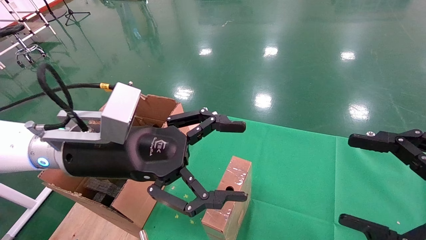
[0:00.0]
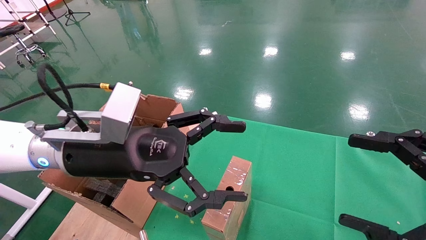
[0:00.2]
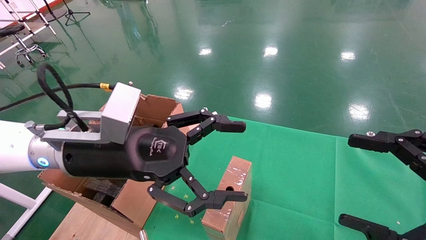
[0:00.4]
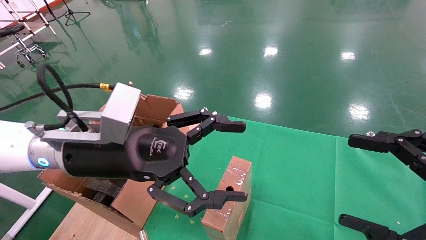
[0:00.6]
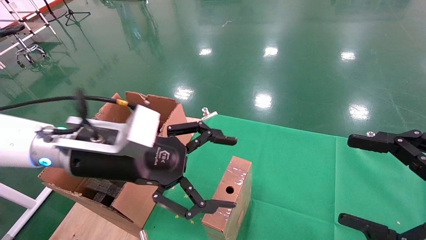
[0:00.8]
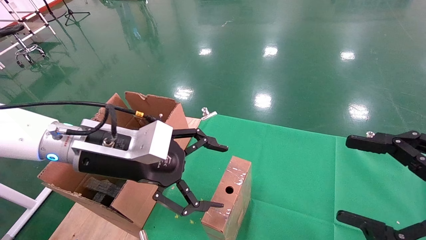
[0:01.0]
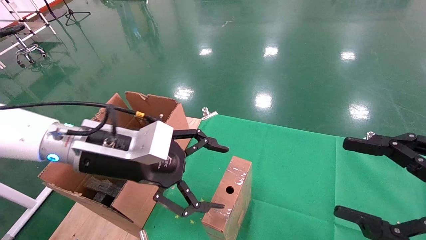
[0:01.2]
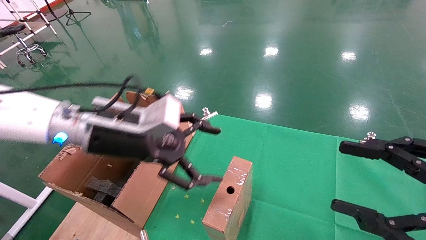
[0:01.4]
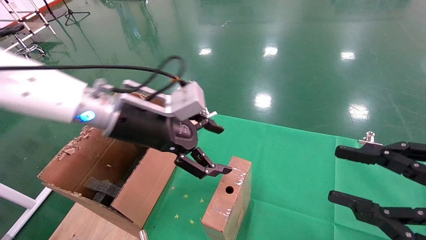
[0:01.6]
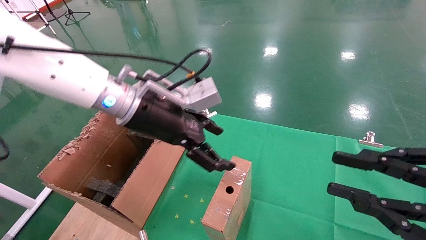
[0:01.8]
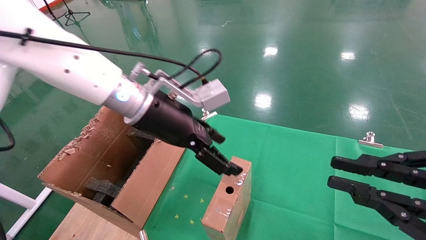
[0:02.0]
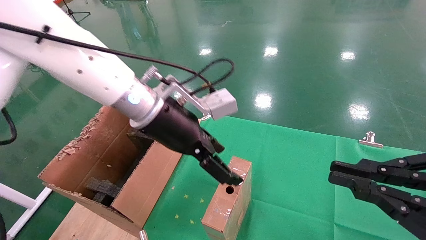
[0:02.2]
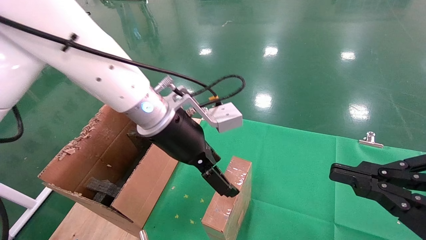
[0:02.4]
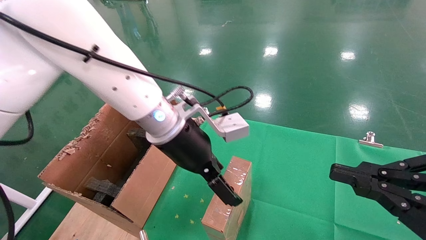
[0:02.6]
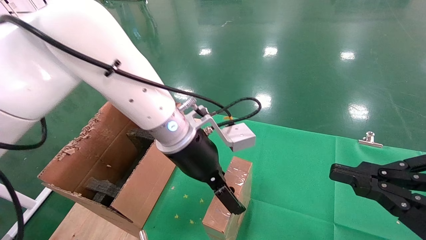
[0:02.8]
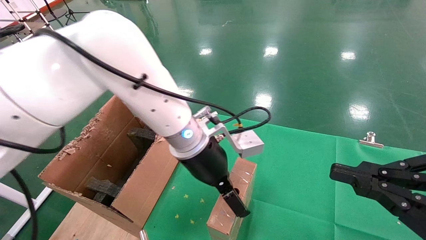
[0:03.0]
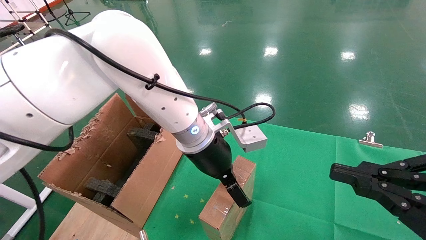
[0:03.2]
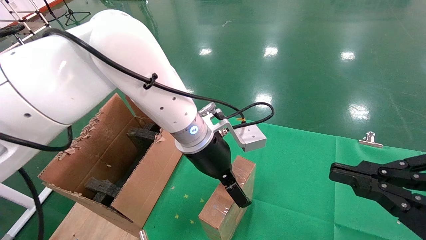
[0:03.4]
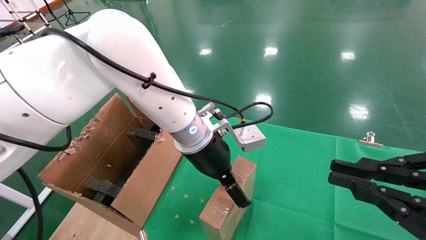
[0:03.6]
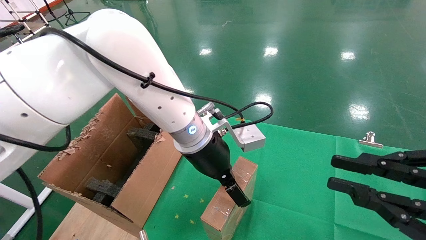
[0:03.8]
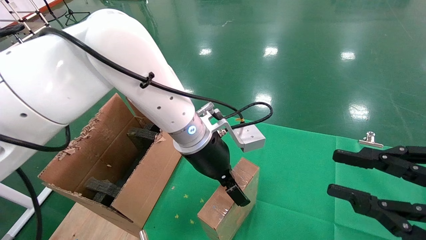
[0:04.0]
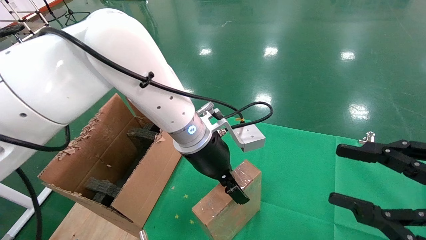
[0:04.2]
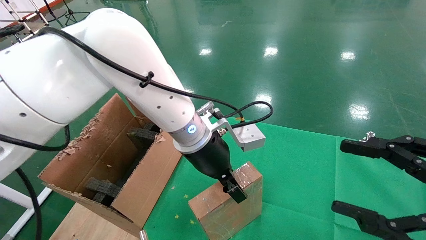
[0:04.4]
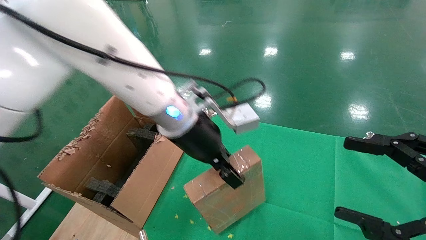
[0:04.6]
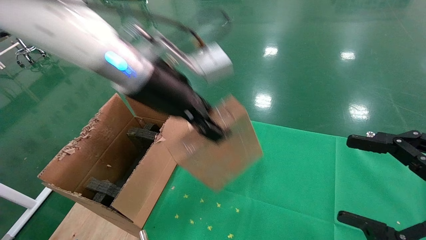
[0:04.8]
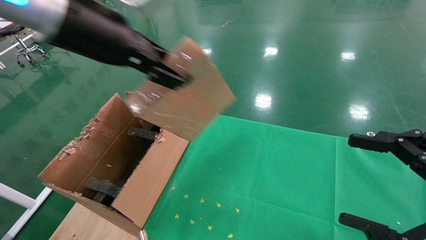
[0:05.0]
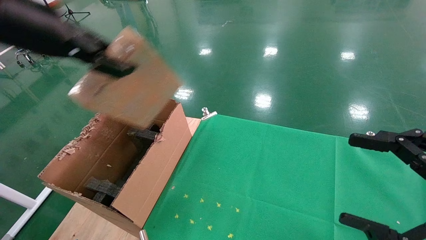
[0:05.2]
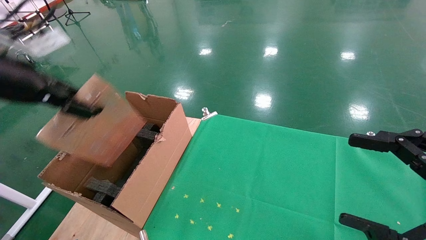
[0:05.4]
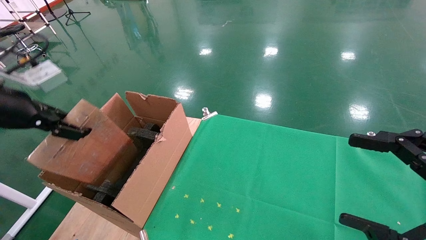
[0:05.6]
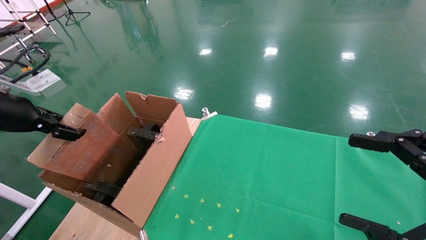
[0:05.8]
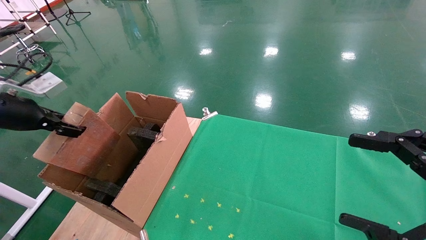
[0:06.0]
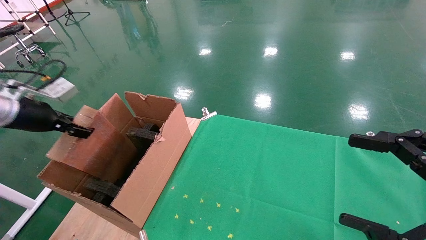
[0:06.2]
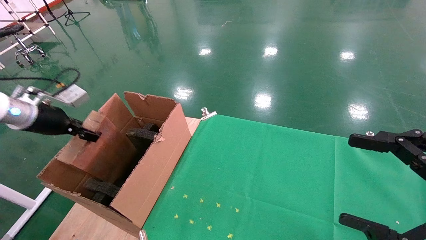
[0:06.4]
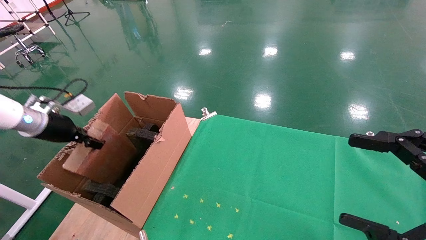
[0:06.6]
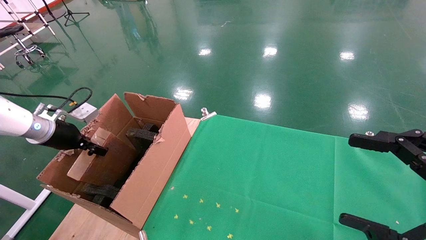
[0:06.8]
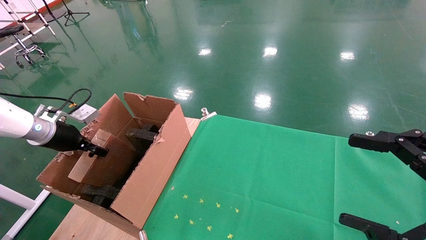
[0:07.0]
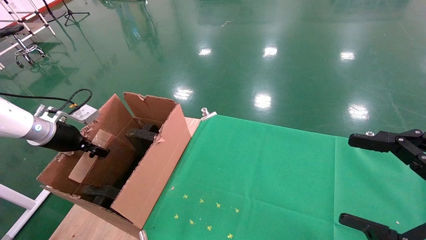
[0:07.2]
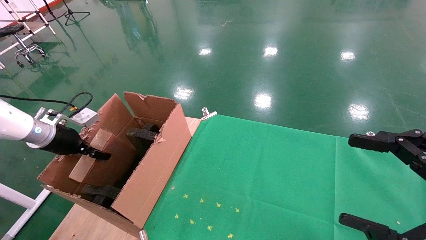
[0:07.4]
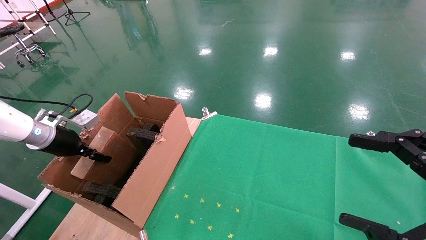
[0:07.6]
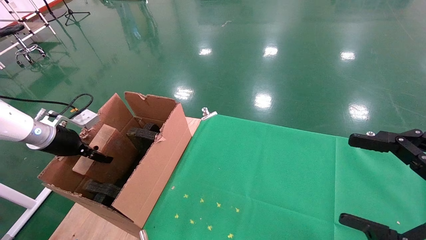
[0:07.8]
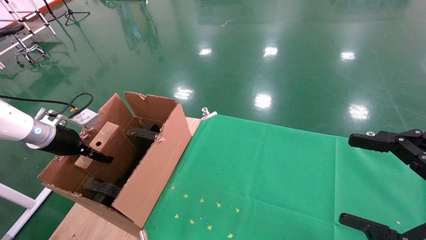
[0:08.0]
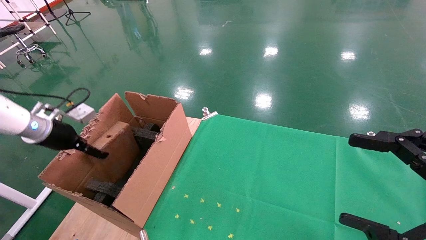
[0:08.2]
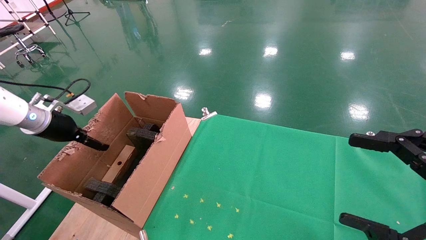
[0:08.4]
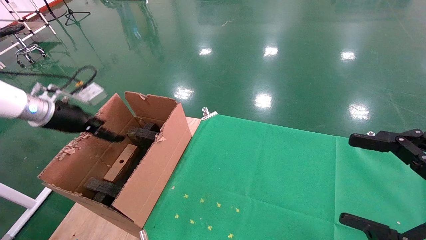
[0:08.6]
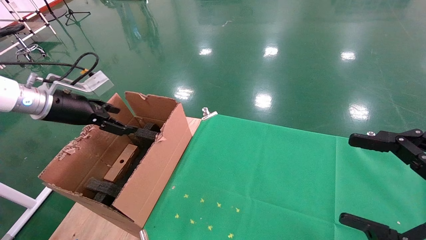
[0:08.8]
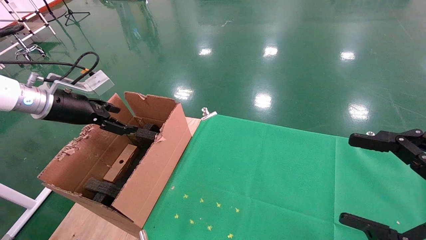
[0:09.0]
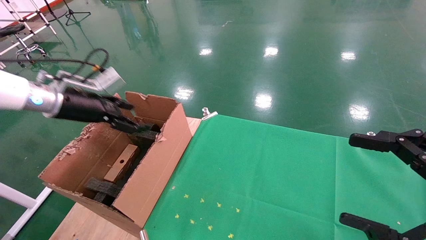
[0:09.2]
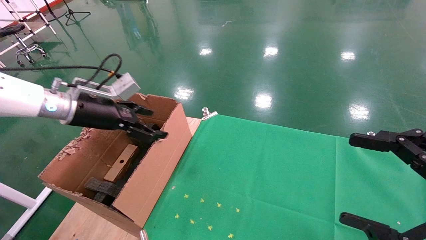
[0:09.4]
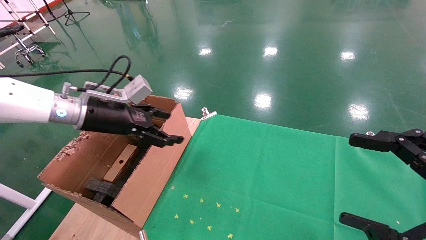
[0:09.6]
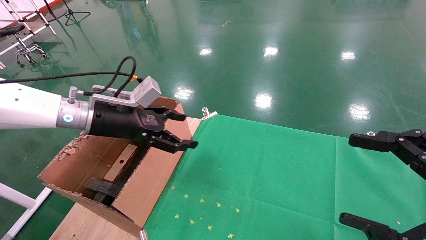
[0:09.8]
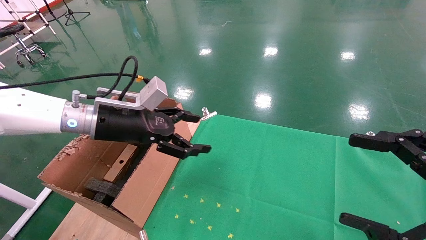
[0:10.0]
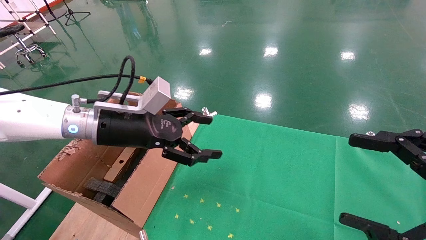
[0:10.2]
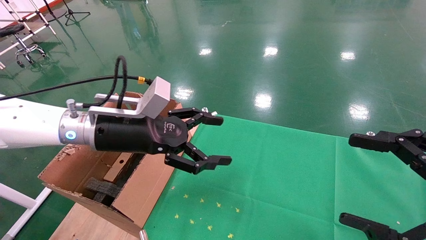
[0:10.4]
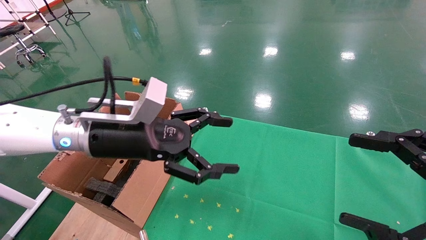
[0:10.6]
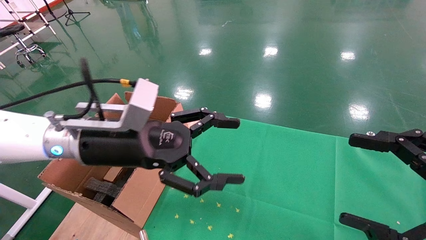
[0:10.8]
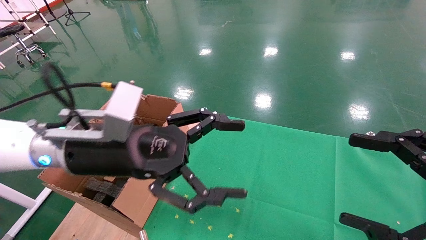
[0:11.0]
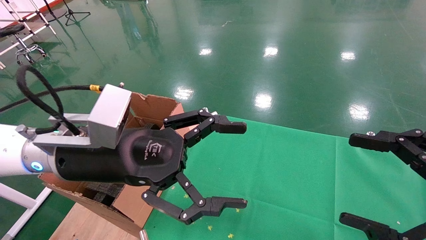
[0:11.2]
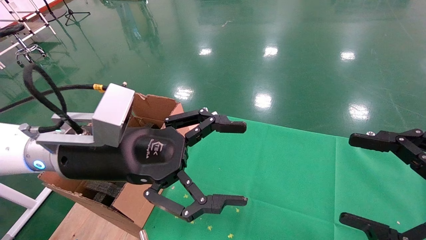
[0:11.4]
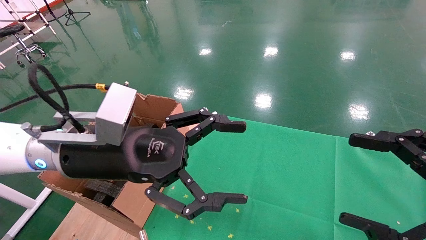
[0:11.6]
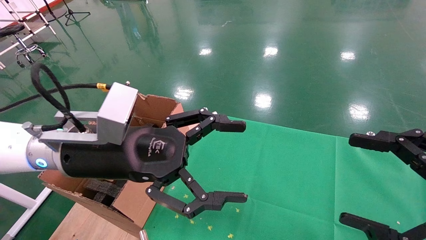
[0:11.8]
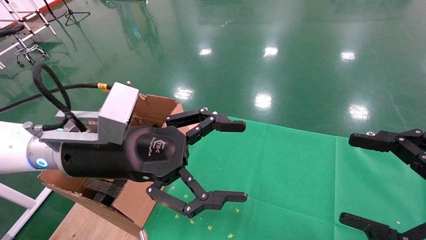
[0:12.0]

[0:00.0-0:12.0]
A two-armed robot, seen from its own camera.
Task of the whole recording: using a robotic arm to pick up a cardboard box and palace it the carton.
Step, 0:01.0 to 0:04.4: Pick up the mouse and the power cord paper box.
Step, 0:04.6 to 0:08.8: Place the mouse and the power cord paper box into the container.
0:00.0 to 0:01.6: The left gripper goes roughly 5 cm forward. Meanwhile the right gripper closes its fingers.
0:01.6 to 0:03.0: The right gripper closes its fingers. Meanwhile the left gripper travels to the right by about 10 cm.
0:03.0 to 0:04.4: The right gripper opens its fingers. Meanwhile the left gripper closes its fingers.
0:04.4 to 0:06.0: The left gripper heads to the left, covering roughly 35 cm. Meanwhile the right gripper opens.
0:06.0 to 0:07.6: The left gripper heads downward and forward, covering roughly 15 cm.
0:07.6 to 0:09.0: The left gripper shifts roughly 10 cm upward and to the right, and opens up.
0:09.0 to 0:10.4: The left gripper goes some 20 cm to the right.
0:10.4 to 0:12.0: The left gripper is displaced backward by some 5 cm.

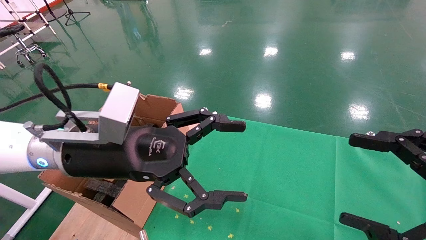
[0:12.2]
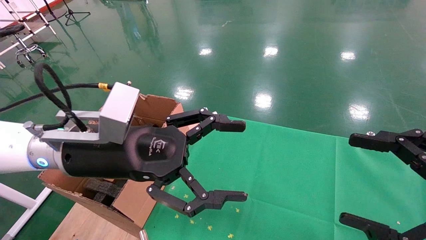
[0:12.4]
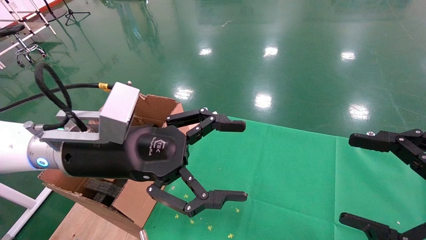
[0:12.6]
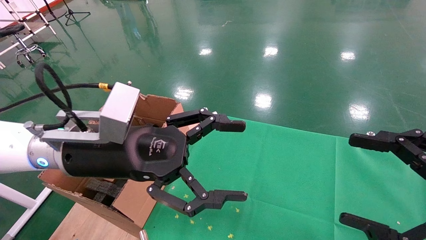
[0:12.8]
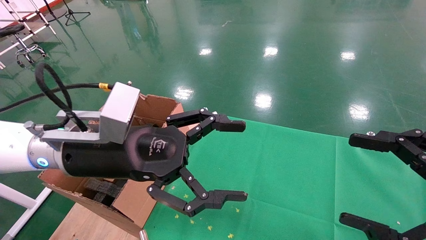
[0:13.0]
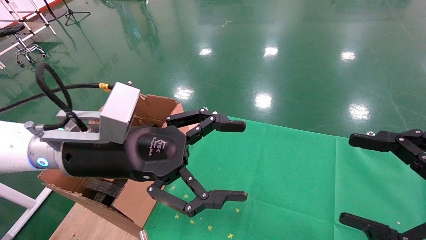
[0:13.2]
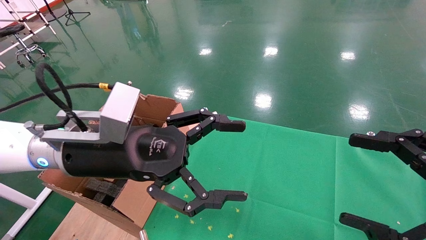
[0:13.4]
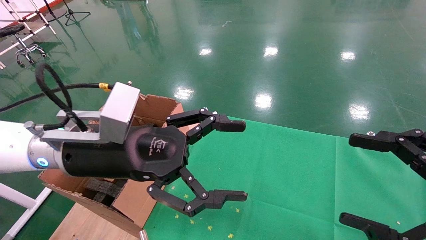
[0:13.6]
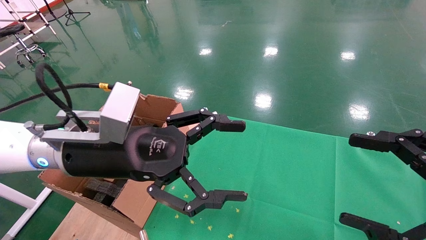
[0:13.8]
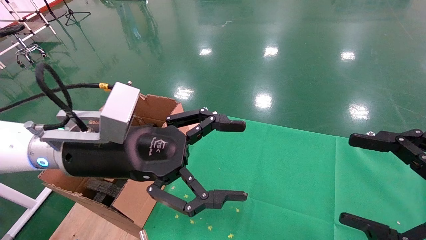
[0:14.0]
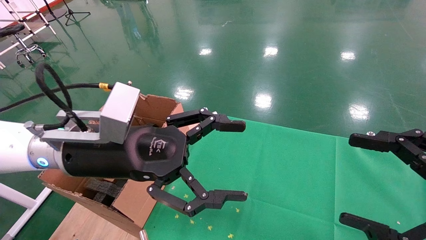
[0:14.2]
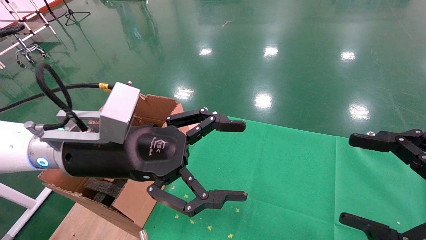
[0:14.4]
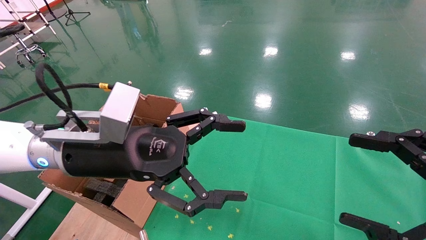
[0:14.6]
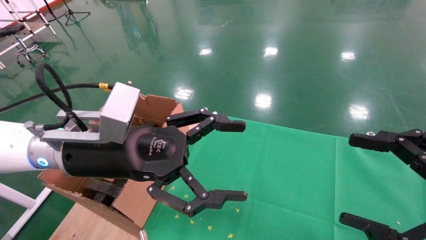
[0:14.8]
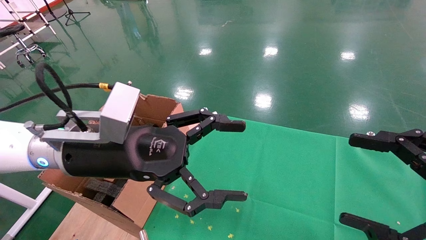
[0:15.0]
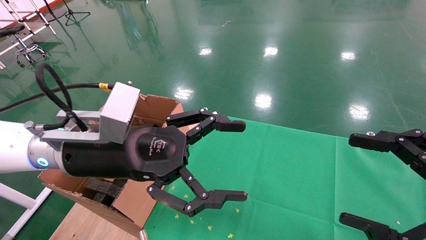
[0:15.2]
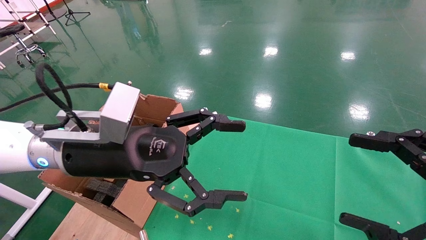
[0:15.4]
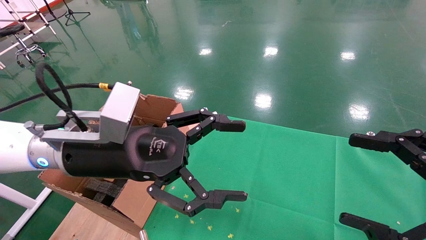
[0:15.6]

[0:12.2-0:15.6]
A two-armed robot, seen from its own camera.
Task of the whole recording: using a robotic arm to pick up a cardboard box and palace it the carton.
0:12.2 to 0:15.6: The two grippers keep their place.

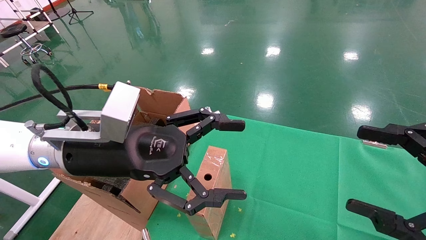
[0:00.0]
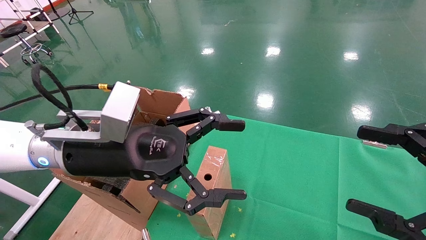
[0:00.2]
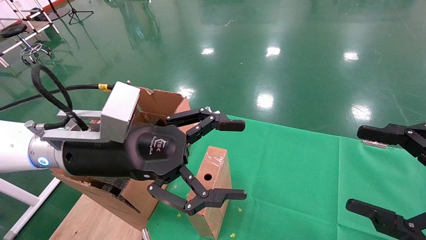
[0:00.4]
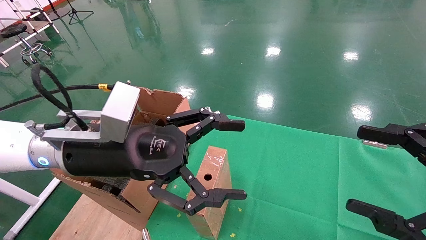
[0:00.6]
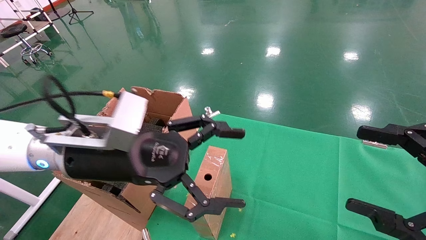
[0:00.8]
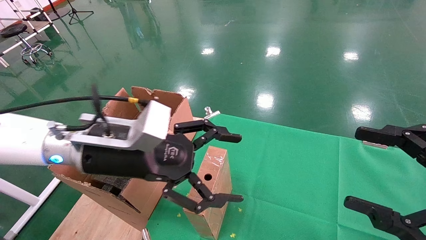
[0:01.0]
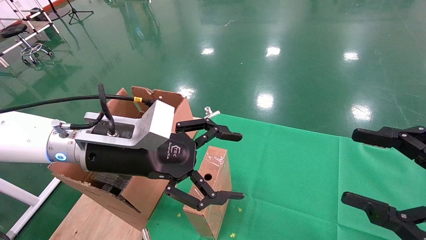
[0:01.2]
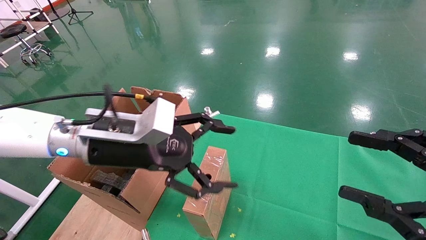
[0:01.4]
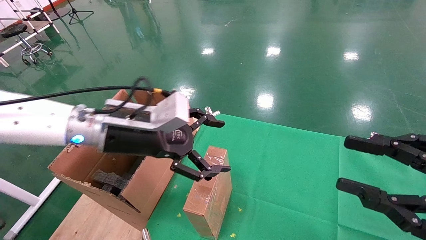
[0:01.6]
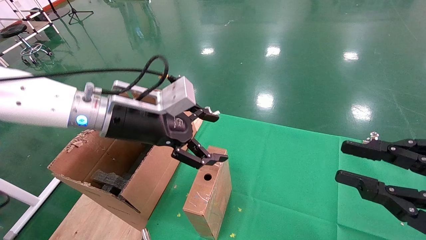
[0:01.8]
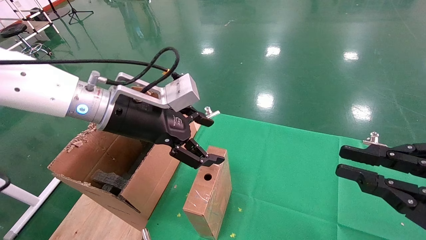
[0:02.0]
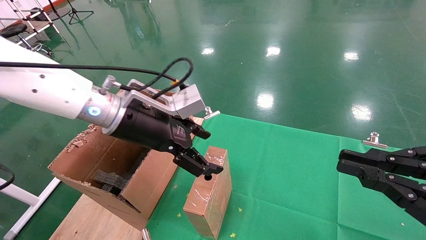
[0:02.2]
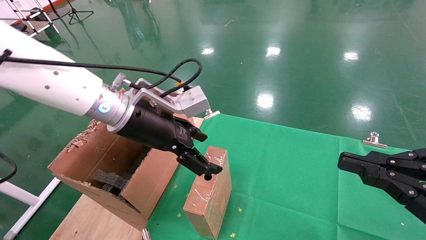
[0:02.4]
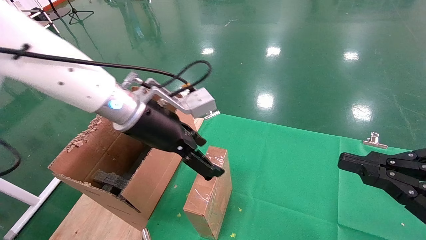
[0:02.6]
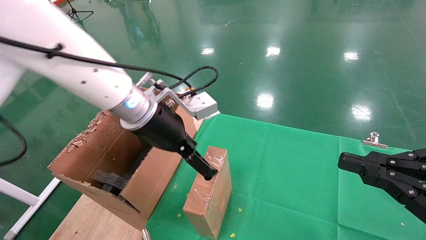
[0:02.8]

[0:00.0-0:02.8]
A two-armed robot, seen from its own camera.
Task of the whole recording: using a robotic arm to pick up a cardboard box and palace it the carton.
0:01.4 to 0:02.8: The right gripper closes its fingers. Meanwhile the left gripper heads to the right, covering roughly 5 cm.
